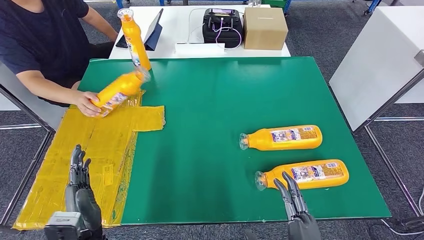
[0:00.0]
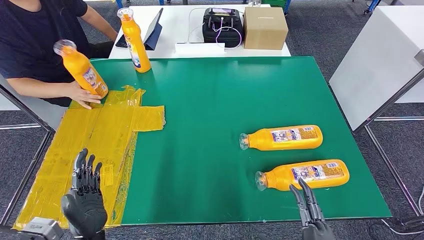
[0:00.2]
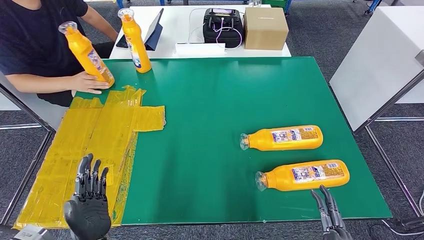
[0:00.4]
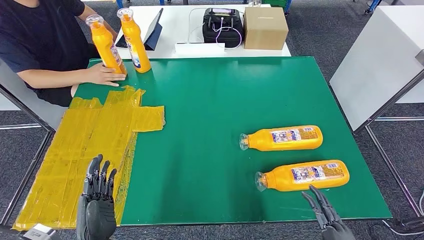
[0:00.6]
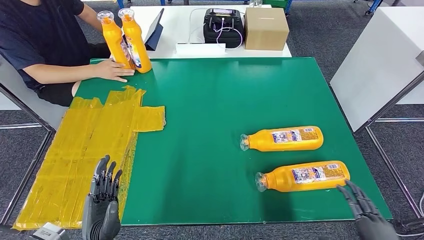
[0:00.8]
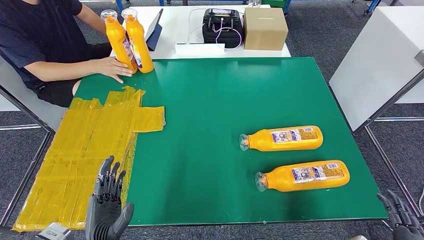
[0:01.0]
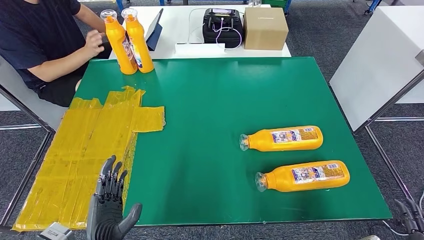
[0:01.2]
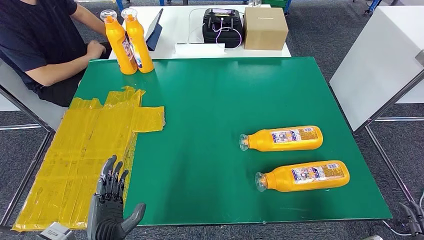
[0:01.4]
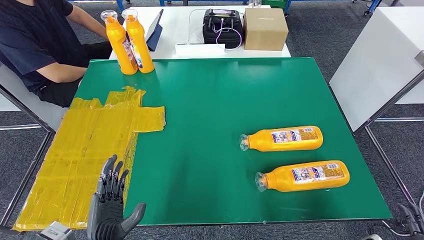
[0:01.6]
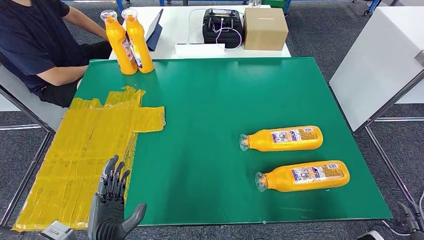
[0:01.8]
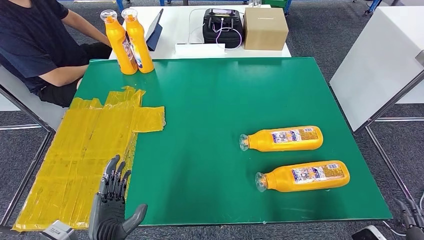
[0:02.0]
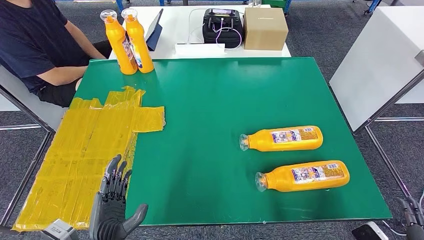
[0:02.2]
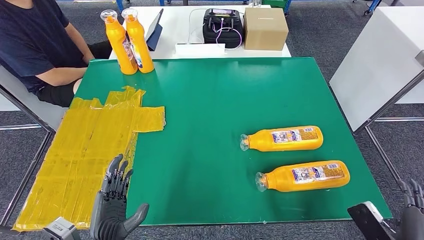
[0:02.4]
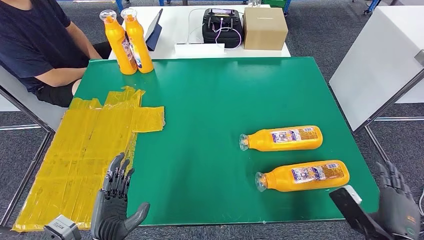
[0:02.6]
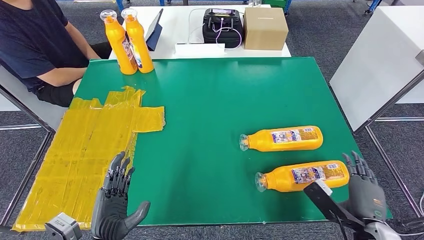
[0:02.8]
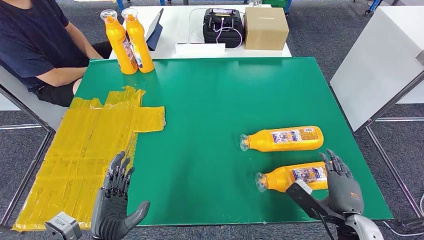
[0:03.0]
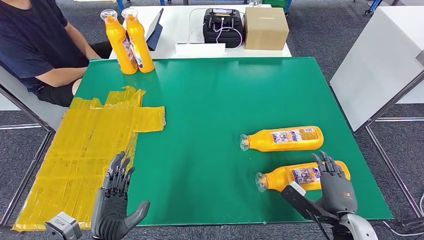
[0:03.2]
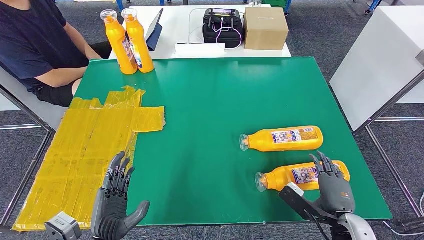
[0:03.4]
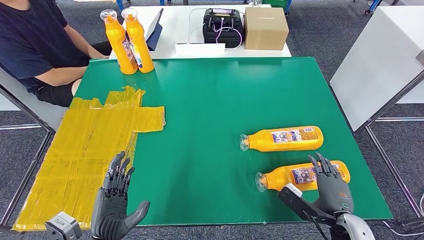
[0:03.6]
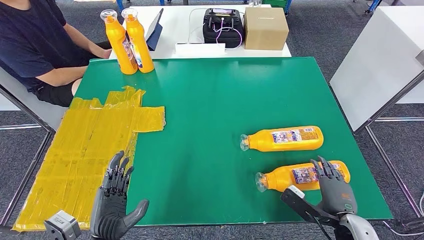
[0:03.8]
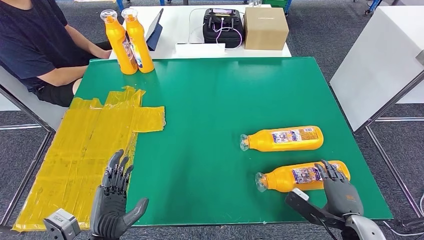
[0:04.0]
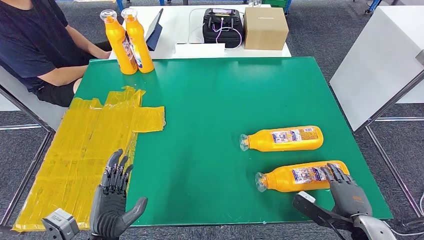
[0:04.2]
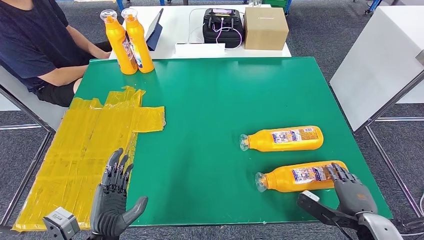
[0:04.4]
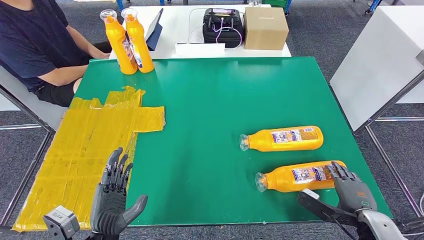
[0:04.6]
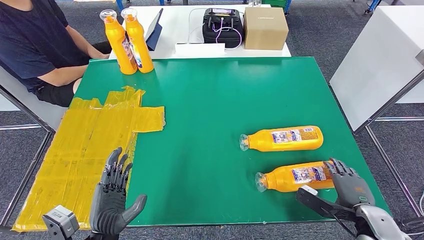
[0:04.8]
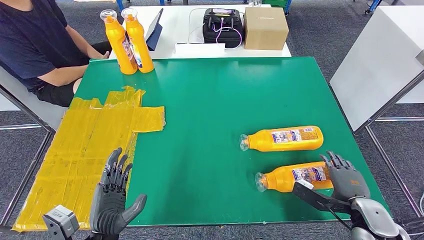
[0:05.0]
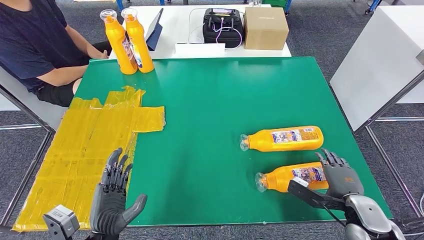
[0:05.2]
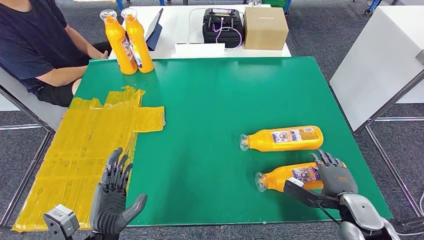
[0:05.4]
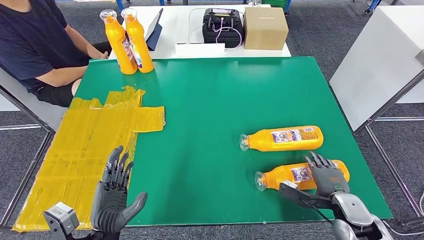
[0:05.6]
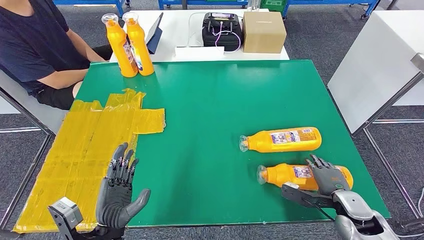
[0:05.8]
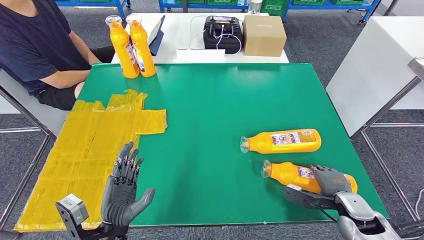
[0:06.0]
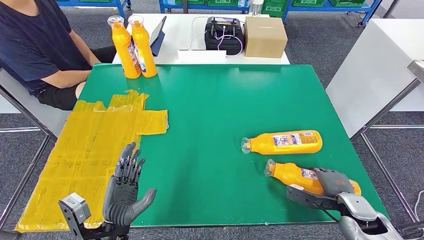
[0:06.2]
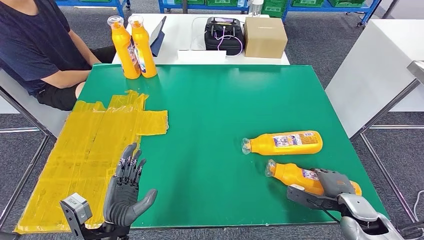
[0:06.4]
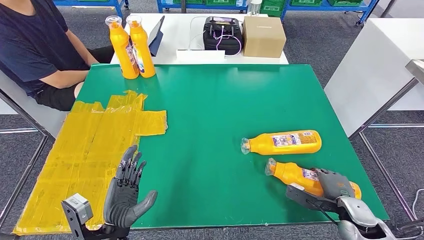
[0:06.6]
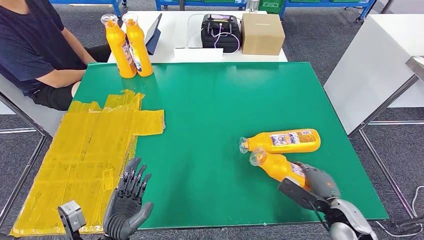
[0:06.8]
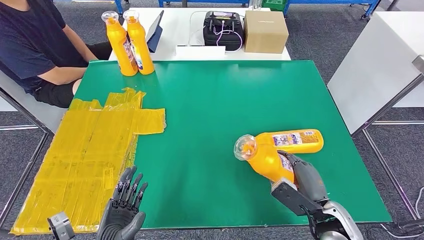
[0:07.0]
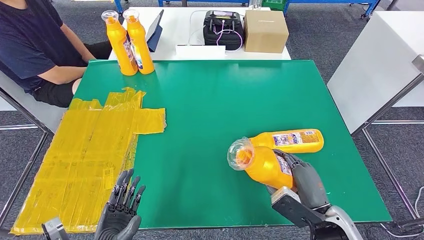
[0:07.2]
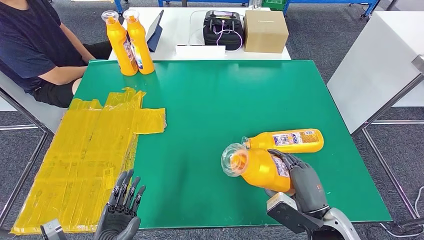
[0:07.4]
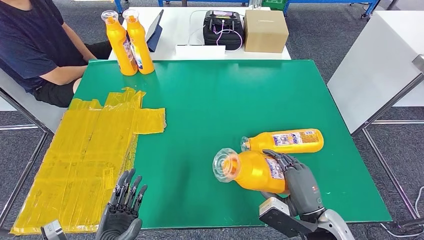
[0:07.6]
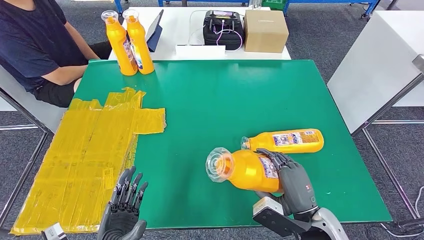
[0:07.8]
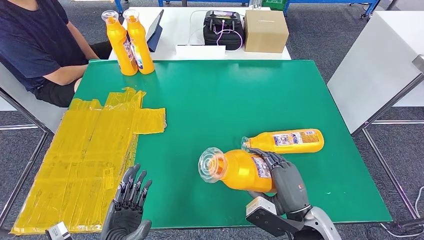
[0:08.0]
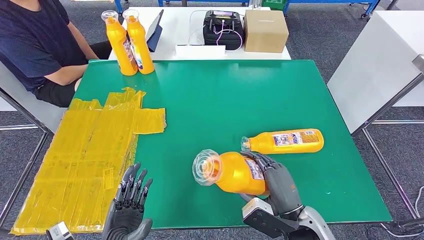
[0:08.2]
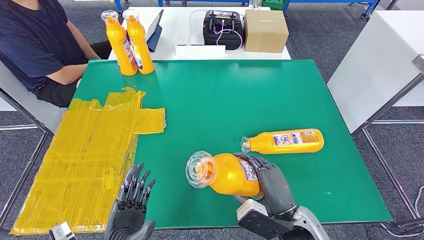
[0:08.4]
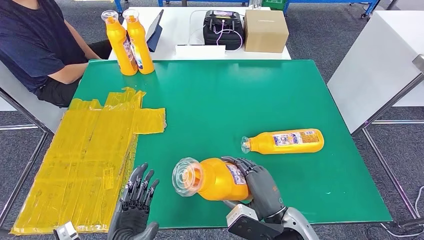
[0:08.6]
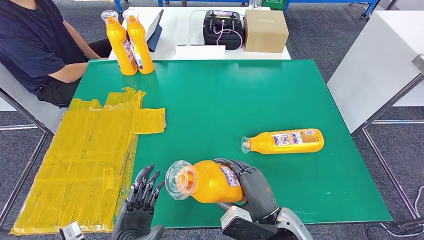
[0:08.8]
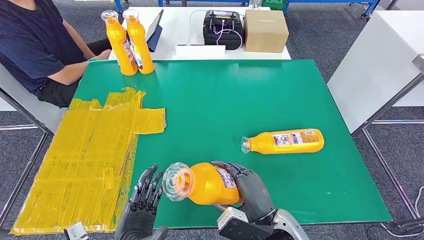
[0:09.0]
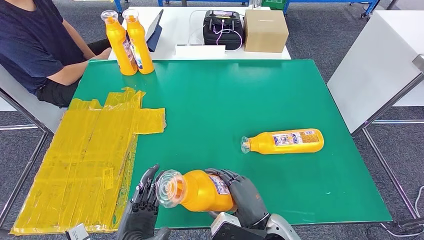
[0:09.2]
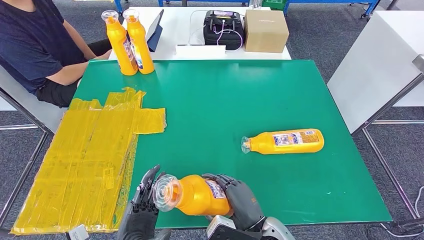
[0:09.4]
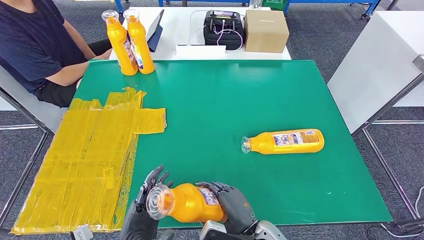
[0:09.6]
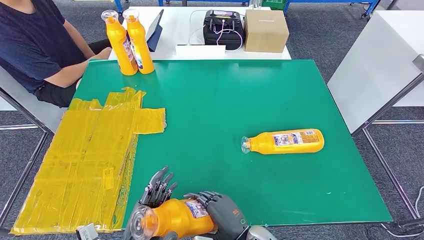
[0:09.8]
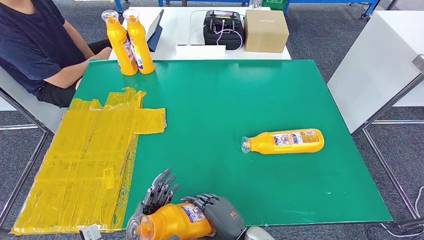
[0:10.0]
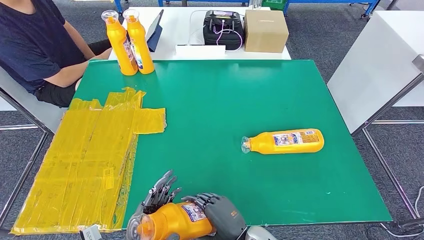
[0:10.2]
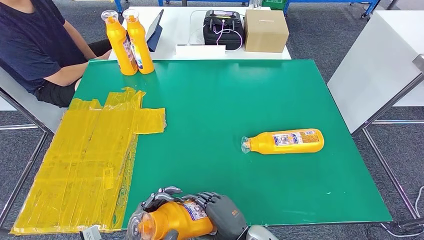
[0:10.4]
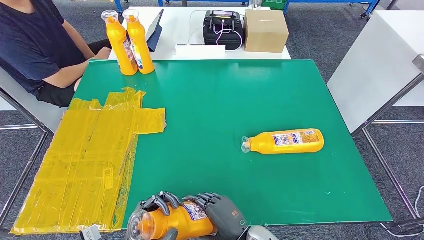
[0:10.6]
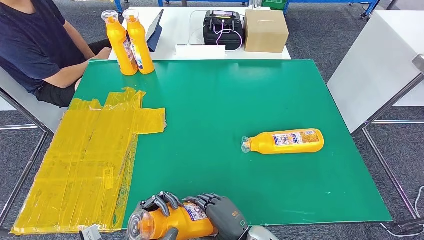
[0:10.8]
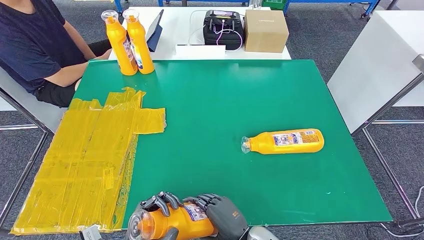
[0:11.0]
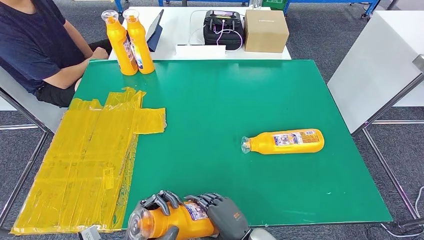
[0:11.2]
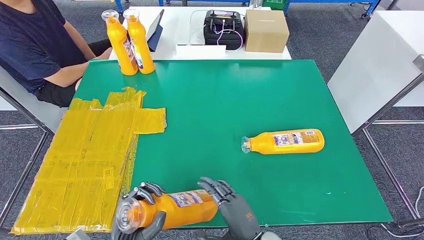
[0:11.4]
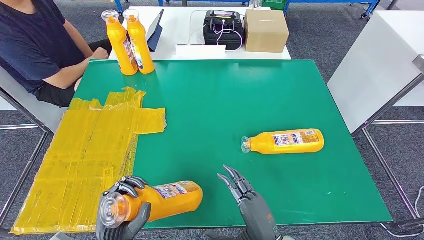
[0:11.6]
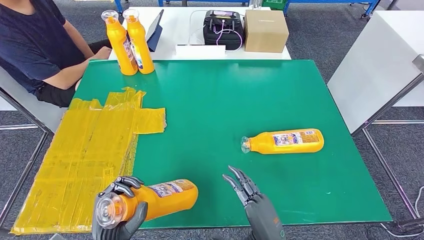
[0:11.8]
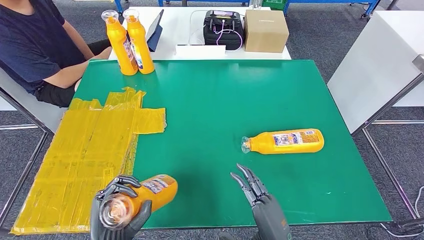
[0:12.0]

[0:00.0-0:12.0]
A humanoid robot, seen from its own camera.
Step, 0:05.6 to 0:09.2: Pick up the fast-moving consumer goods bottle from the table.
0:00.0 to 0:01.6: The right hand is displaced to the right by about 20 cm.
0:01.6 to 0:03.0: The right hand goes about 15 cm forward and to the left.
0:03.0 to 0:04.4: The right hand travels to the right by approximately 5 cm.
0:07.6 to 0:09.0: The right hand heads to the left, covering some 10 cm.
0:09.0 to 0:10.4: The right hand moves approximately 5 cm.
0:10.4 to 0:12.0: The right hand is displaced to the right by roughly 5 cm.

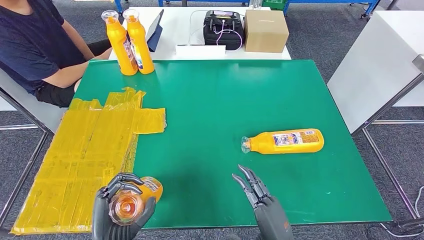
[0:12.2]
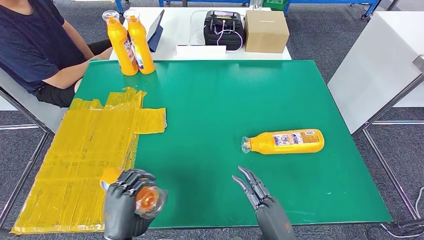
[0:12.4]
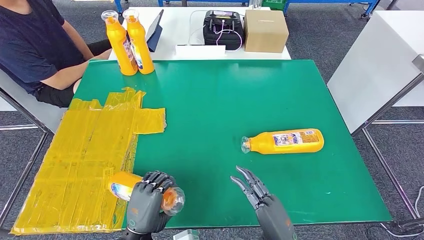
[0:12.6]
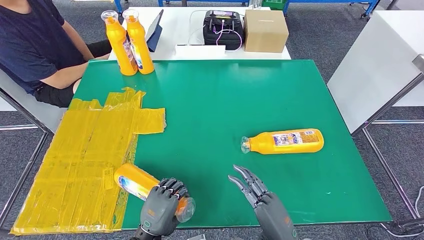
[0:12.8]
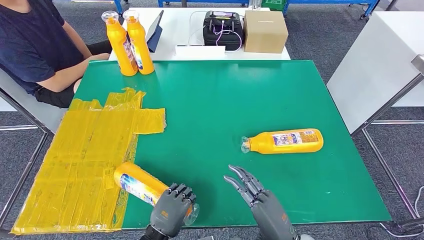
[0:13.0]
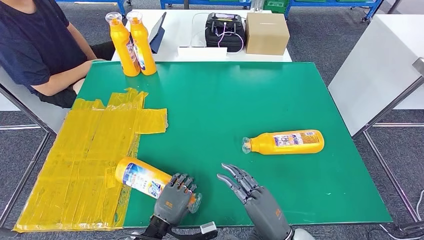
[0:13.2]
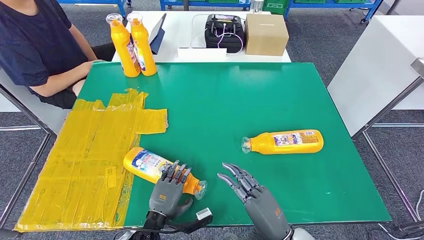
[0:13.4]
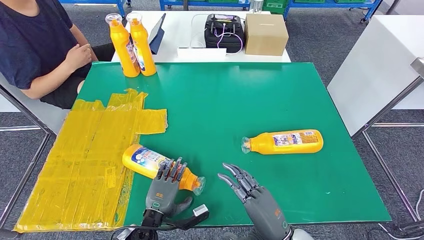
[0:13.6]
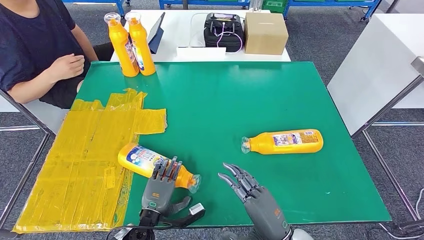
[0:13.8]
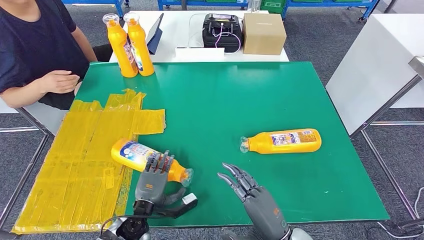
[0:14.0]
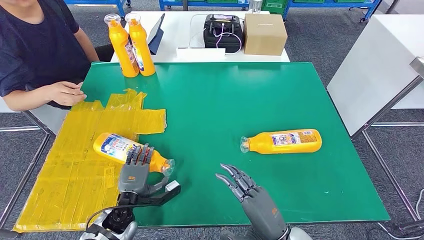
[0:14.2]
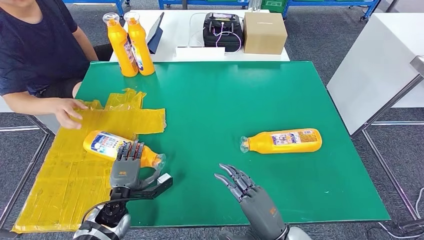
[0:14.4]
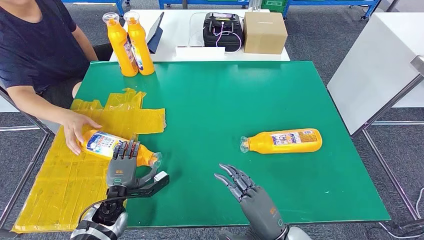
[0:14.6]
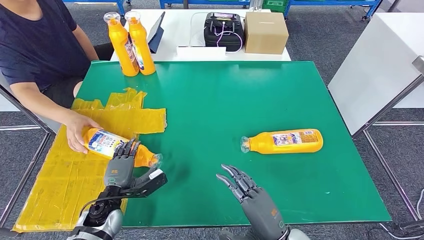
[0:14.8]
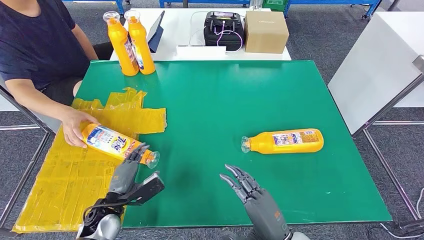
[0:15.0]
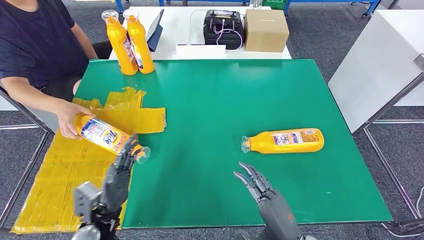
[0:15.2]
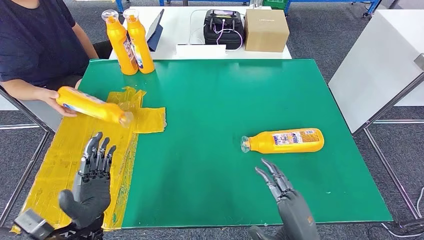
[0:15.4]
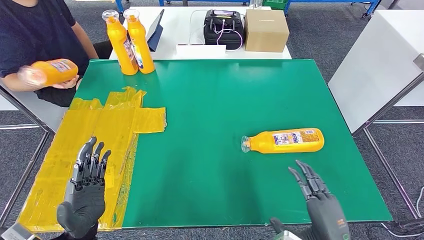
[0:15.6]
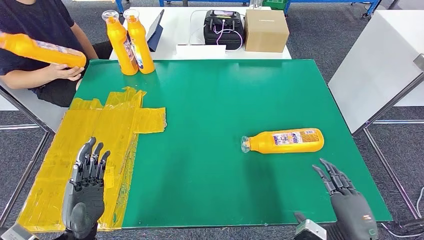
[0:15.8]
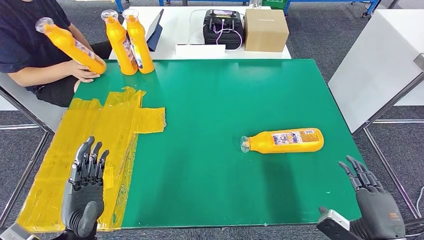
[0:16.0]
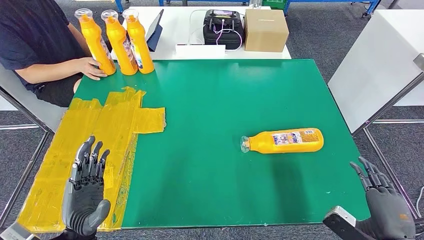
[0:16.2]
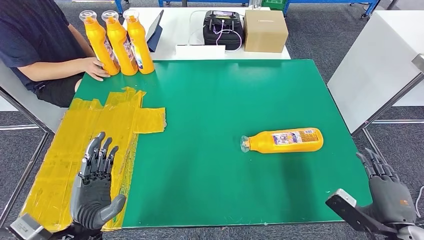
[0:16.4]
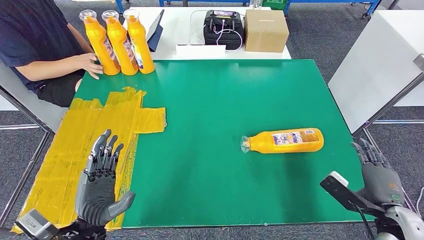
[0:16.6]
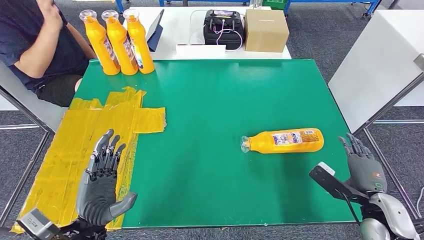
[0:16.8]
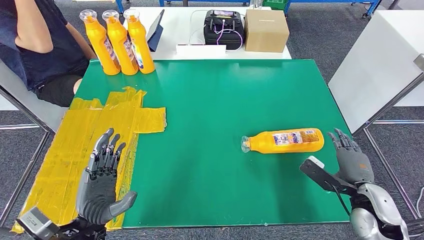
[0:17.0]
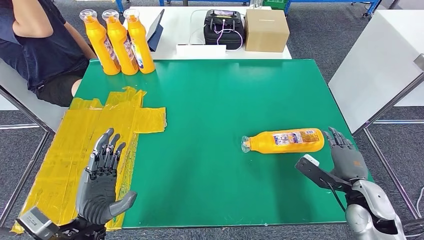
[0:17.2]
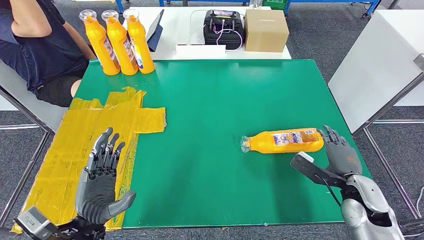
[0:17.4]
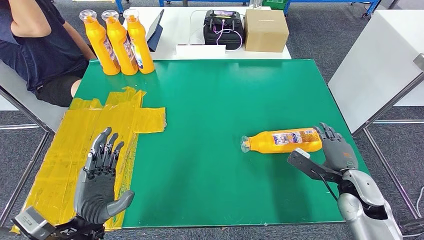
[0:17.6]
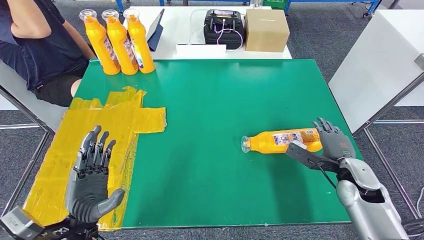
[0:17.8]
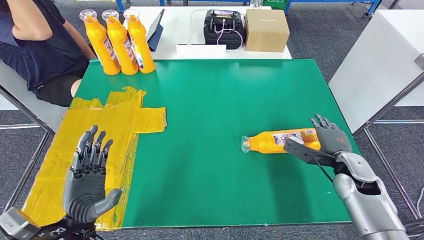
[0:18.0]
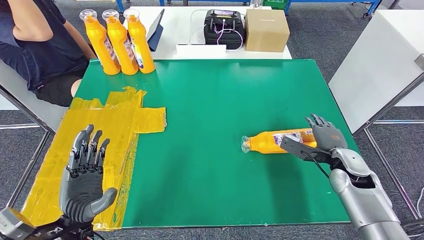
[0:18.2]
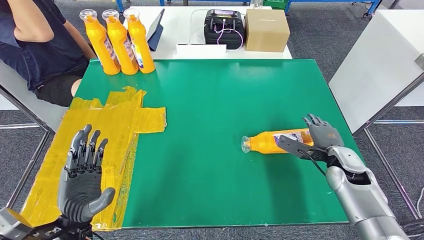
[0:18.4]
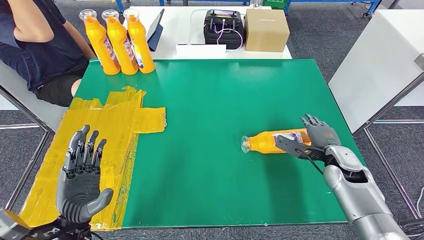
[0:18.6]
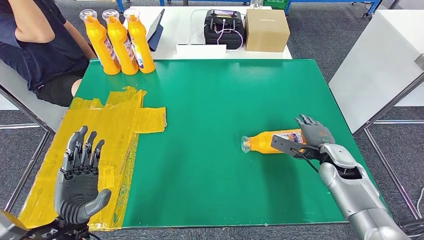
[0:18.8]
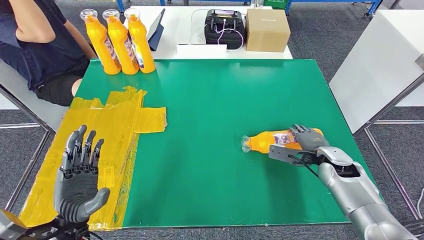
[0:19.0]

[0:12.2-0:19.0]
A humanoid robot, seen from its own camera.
Step, 0:12.2 to 0:14.8: Flip the fast-moving consumer goods bottle to the front side.
0:13.6 to 0:15.0: The left hand shifts about 10 cm to the left.
0:16.2 to 0:17.6: The right hand shifts approximately 15 cm forward.
0:17.6 to 0:19.0: The right hand travels forward by approximately 10 cm.
